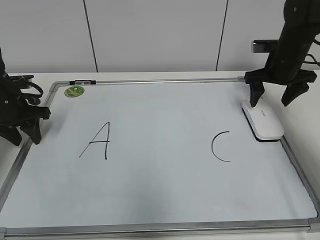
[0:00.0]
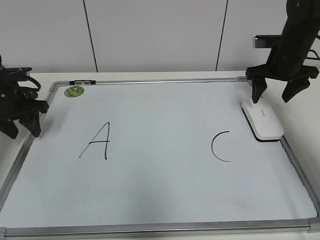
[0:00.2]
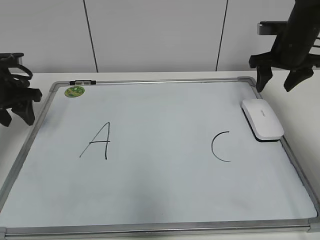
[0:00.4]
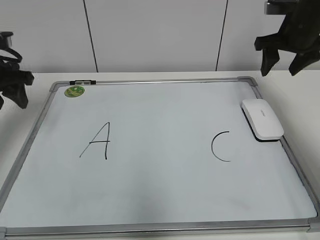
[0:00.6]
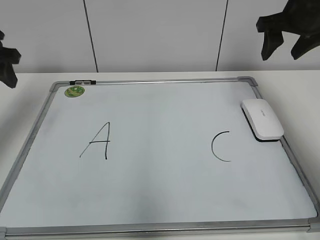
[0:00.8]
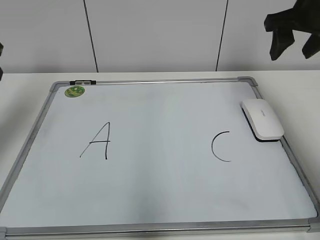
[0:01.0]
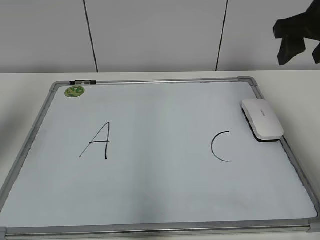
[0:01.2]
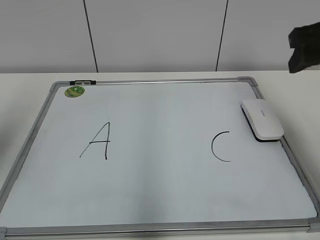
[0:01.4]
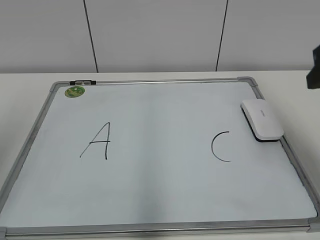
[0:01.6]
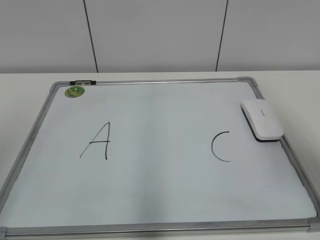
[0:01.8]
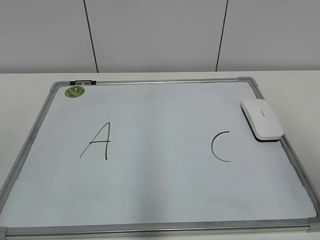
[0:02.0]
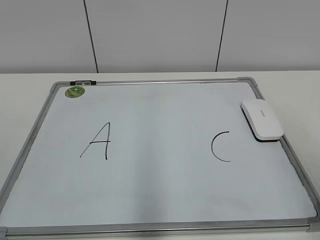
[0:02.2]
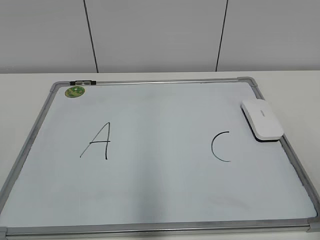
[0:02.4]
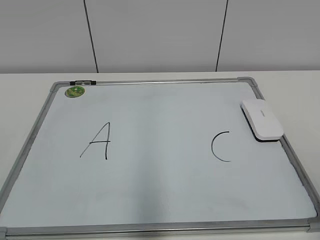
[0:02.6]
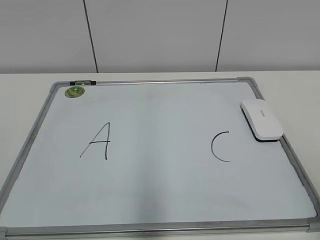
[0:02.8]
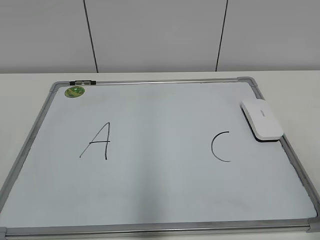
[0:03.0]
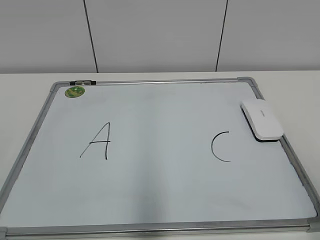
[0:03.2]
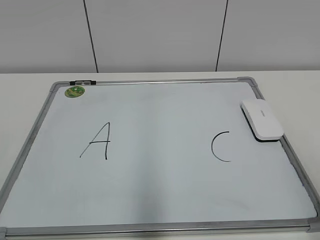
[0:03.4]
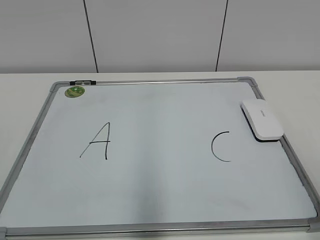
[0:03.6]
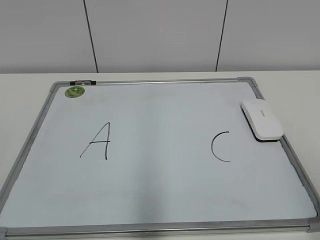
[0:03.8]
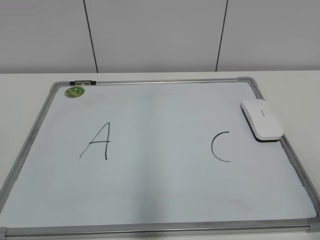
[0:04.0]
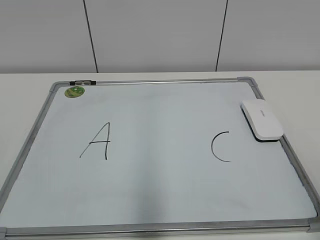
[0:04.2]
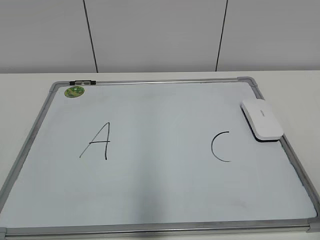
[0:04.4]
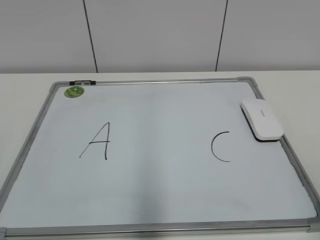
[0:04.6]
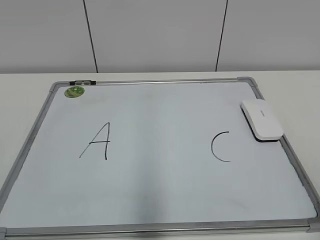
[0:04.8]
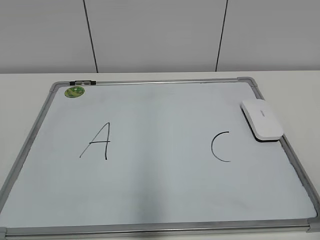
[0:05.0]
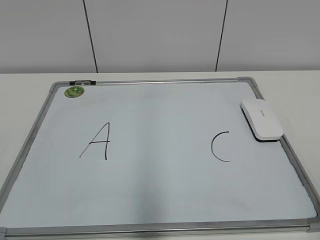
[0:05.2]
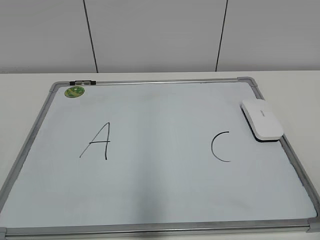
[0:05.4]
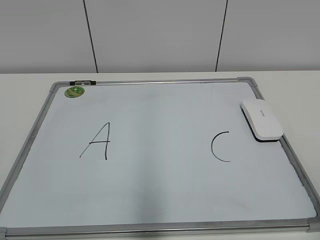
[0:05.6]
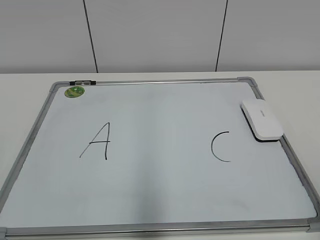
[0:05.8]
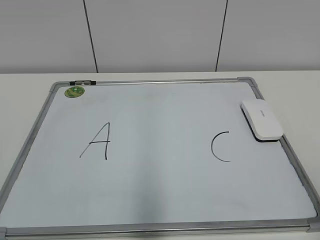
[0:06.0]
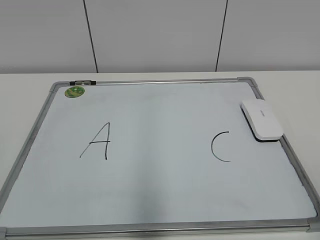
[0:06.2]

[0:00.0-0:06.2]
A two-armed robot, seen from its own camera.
Task of the whole recording: pick up the eraser on the blackboard and erase the letter "B".
0:00.0 to 0:01.6: The two grippers go about 25 cm backward and upward. The right gripper closes its fingers.
0:01.6 to 0:03.2: Both grippers travel together backward, some 20 cm.
0:04.6 to 0:06.2: The two grippers keep their place.

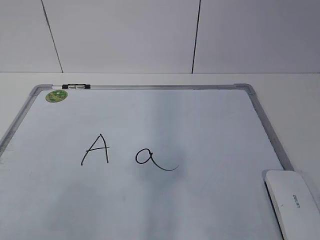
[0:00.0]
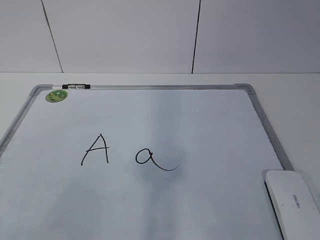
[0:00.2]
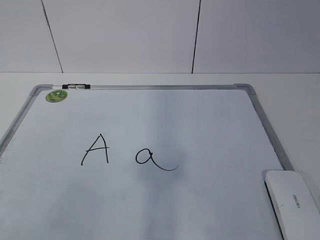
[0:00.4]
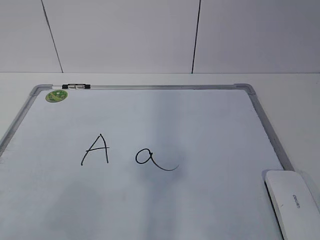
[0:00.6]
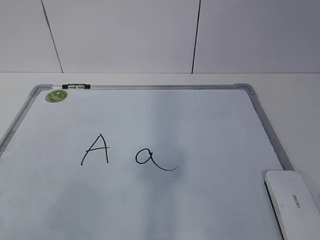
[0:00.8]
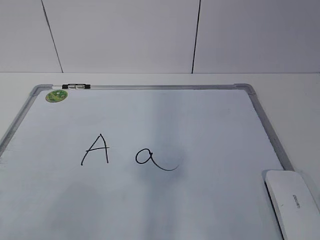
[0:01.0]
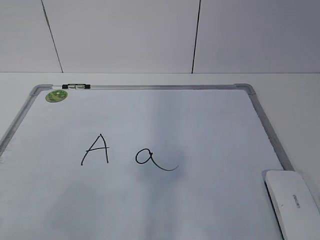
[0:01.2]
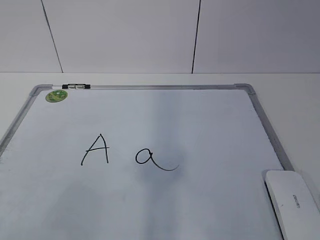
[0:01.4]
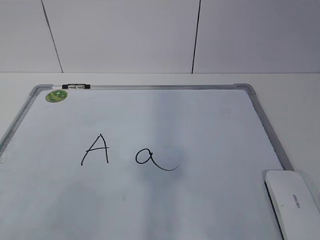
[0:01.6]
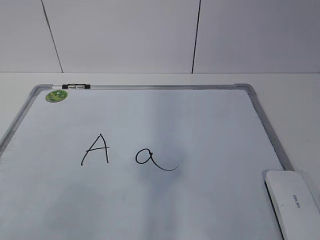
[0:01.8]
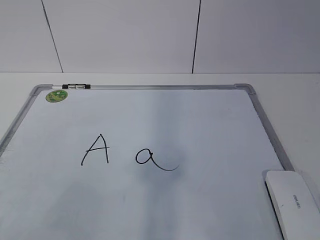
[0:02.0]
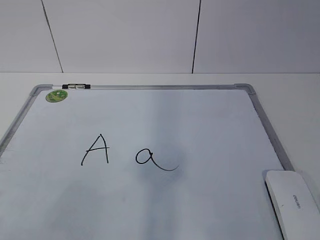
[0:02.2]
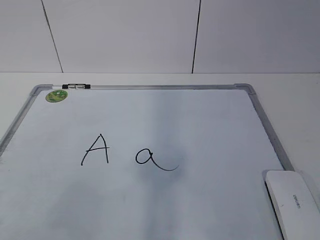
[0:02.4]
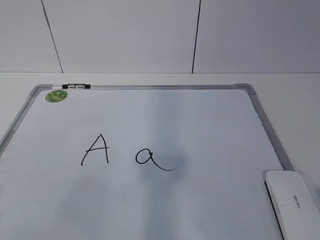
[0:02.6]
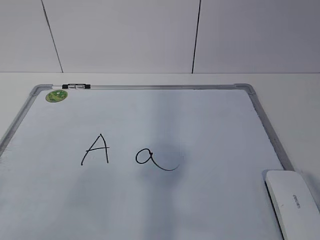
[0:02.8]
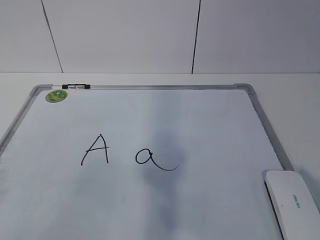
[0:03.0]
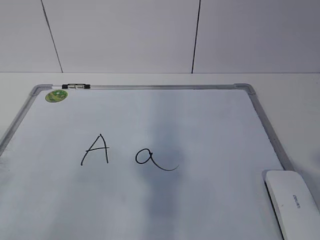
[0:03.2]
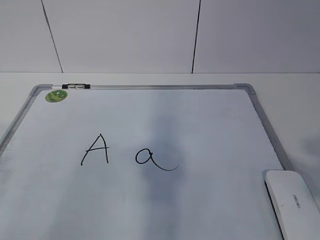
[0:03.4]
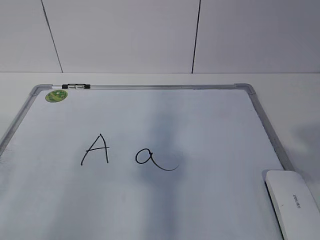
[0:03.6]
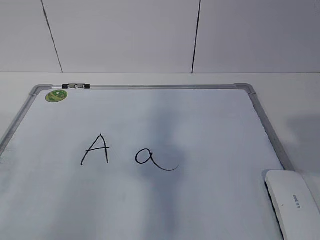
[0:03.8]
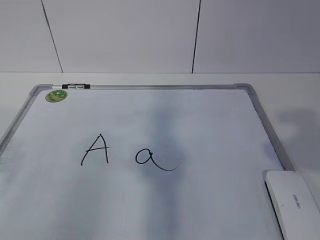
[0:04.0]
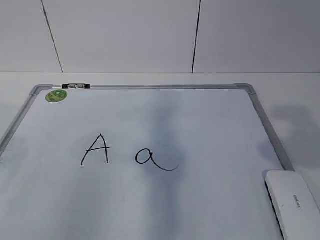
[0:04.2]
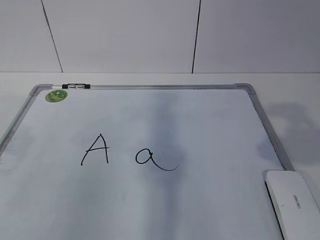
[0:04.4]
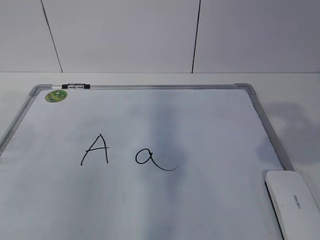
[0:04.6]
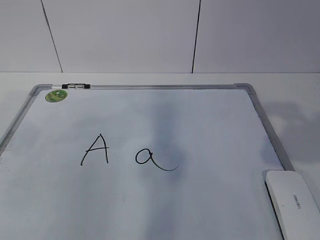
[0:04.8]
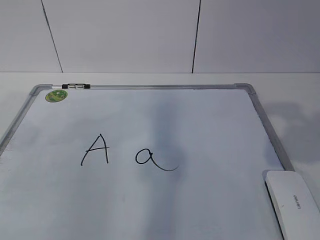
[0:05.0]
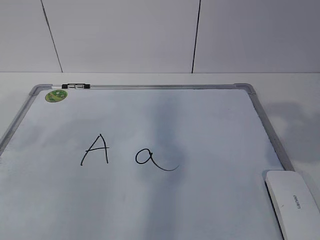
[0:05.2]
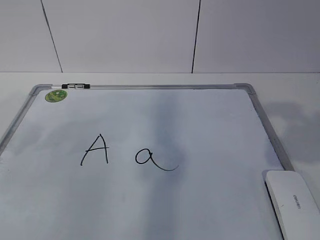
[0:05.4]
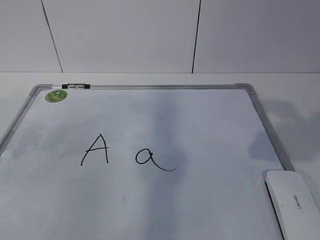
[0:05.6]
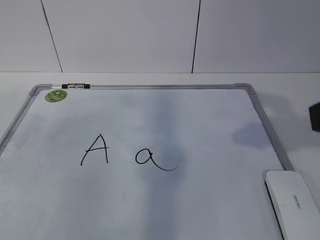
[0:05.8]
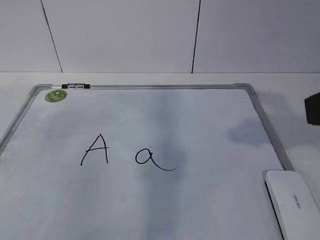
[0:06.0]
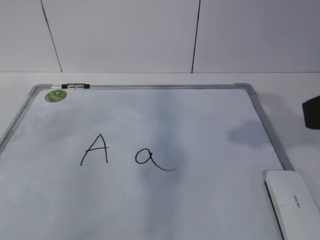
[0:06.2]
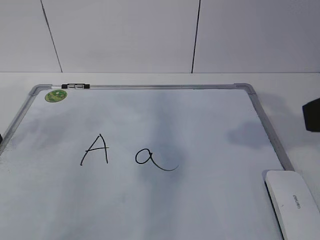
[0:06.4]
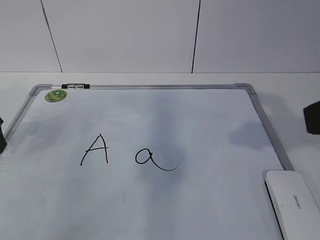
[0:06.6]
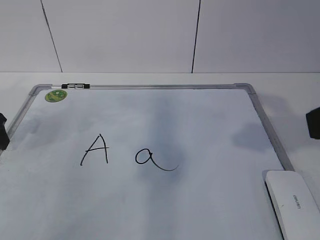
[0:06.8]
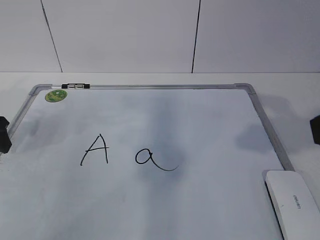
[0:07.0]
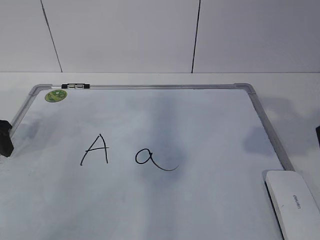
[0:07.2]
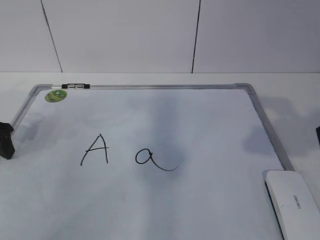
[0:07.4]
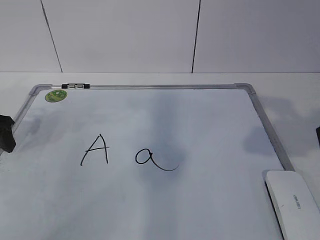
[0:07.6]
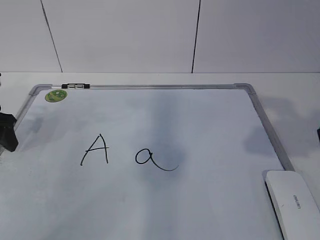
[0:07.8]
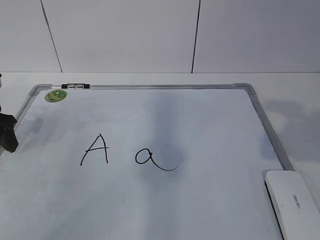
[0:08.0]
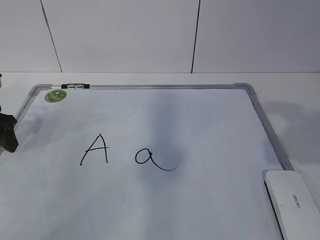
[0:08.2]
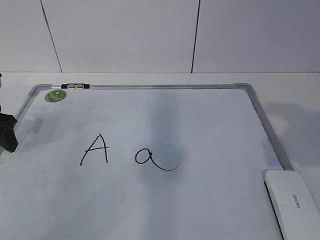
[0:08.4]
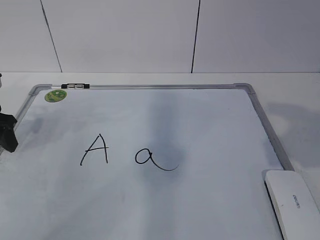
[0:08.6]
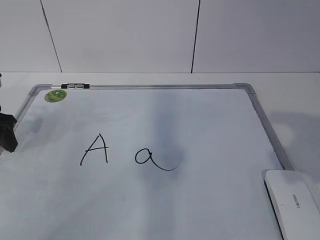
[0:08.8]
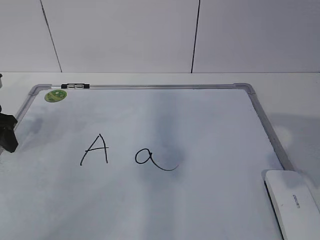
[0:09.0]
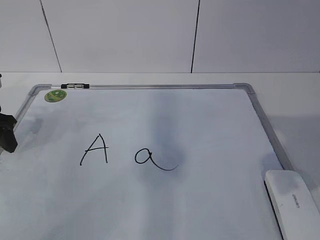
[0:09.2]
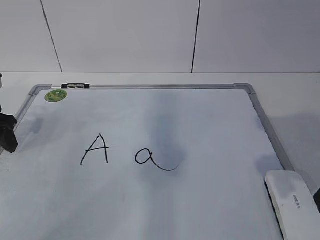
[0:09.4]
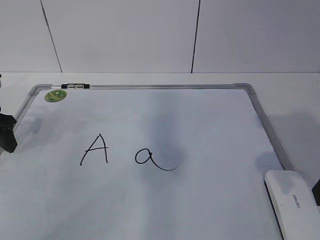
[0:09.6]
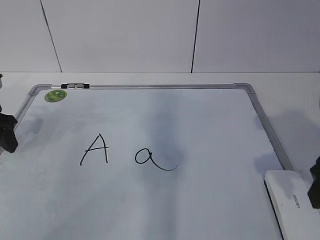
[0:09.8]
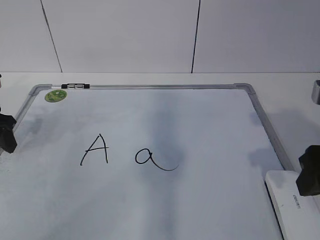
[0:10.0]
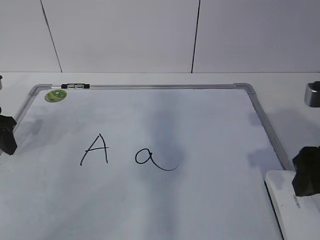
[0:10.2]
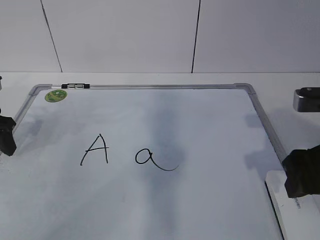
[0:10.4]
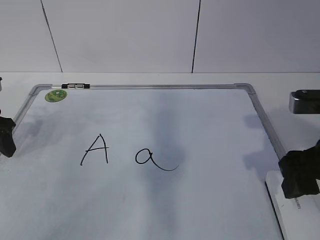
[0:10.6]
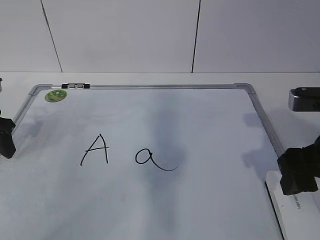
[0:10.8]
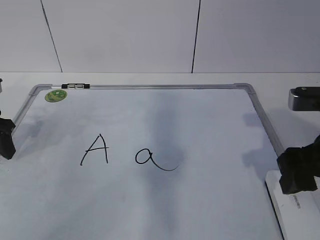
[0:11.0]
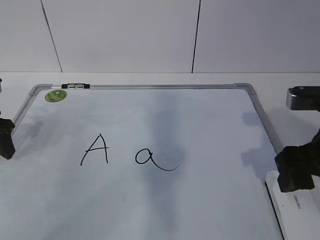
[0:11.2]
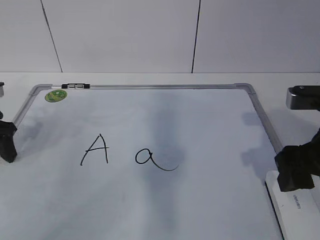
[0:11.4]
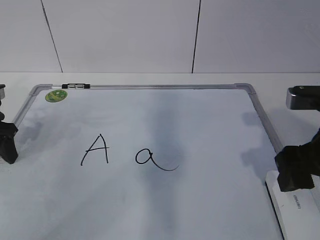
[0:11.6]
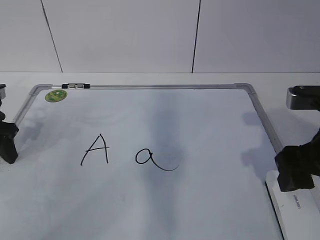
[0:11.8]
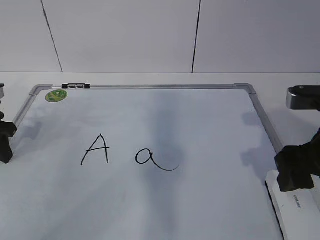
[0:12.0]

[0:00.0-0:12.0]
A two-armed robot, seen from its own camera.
Task of the whole recording: pick up the eraser on the blackboard and erase the letter "a".
Step, 0:00.0 to 0:10.6: Hold the drawing board steady with your left hand.
0:03.0 to 0:04.4: The right gripper shifts some 10 cm forward.
0:06.0 to 0:07.6: The left gripper is displaced downward and forward by some 10 cm.
0:09.0 to 0:10.4: The right gripper travels forward and downward by roughly 10 cm.
0:10.4 to 0:12.0: Both grippers stay about where they are.

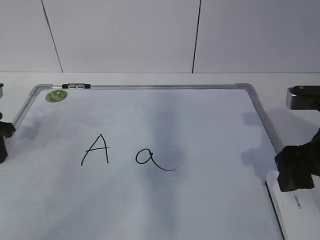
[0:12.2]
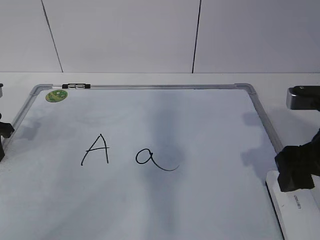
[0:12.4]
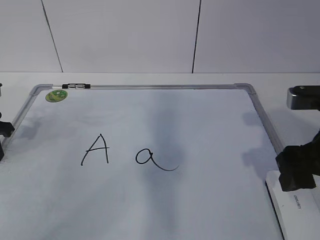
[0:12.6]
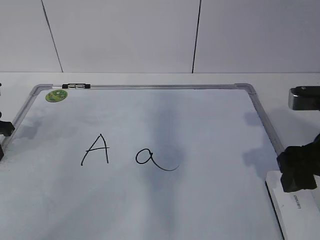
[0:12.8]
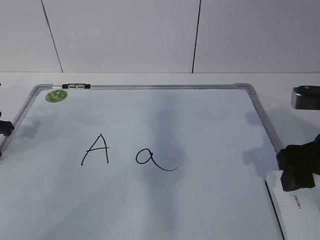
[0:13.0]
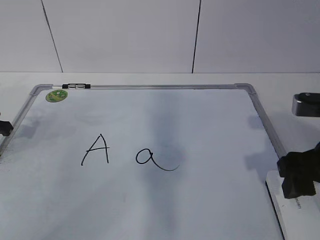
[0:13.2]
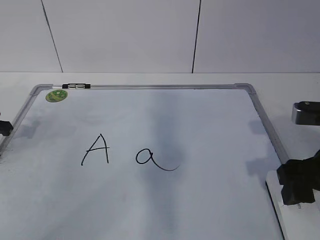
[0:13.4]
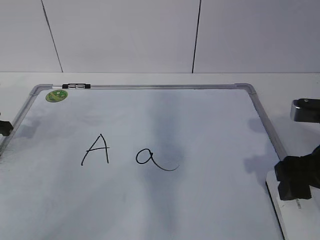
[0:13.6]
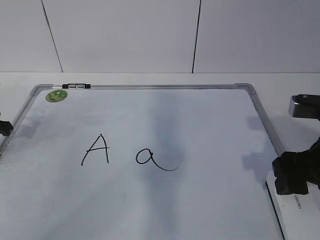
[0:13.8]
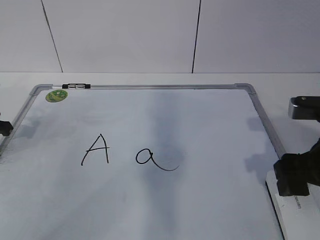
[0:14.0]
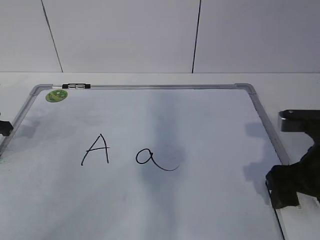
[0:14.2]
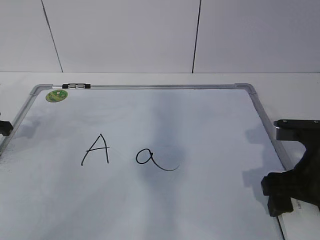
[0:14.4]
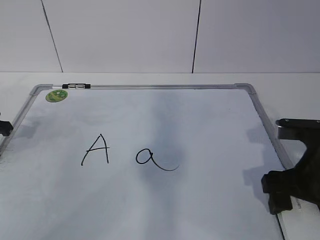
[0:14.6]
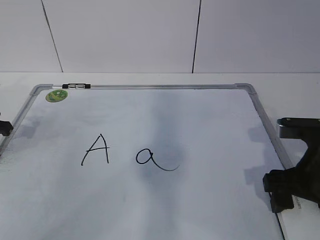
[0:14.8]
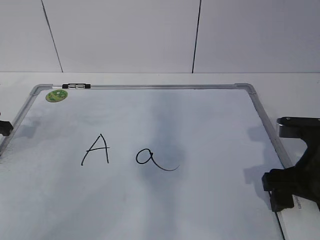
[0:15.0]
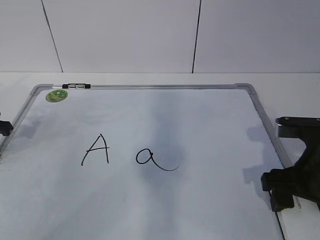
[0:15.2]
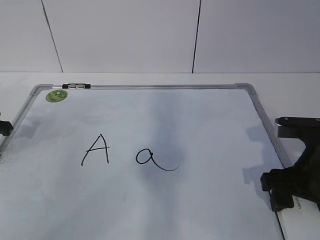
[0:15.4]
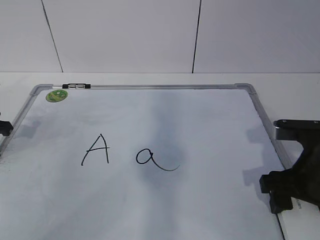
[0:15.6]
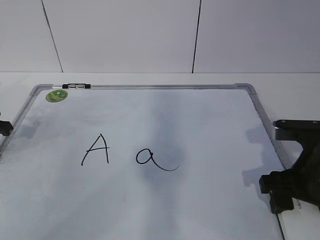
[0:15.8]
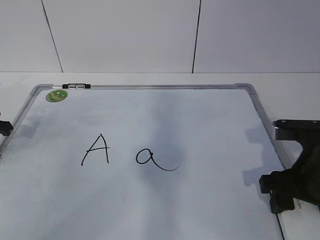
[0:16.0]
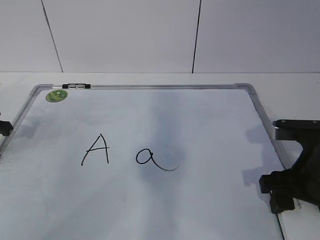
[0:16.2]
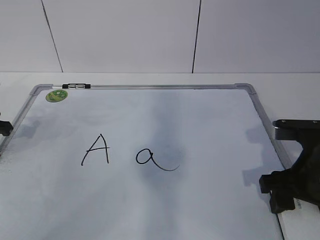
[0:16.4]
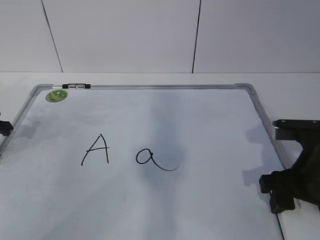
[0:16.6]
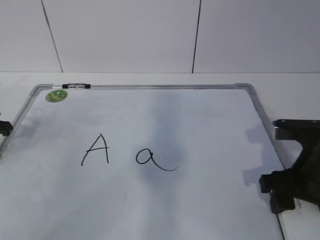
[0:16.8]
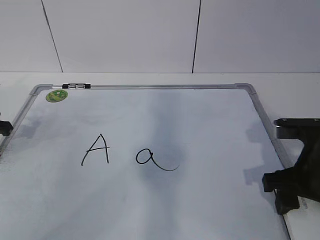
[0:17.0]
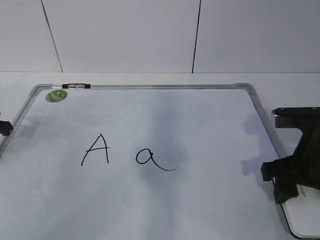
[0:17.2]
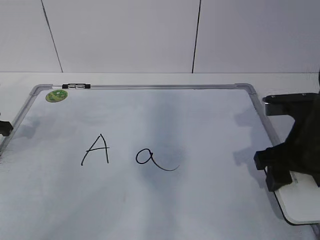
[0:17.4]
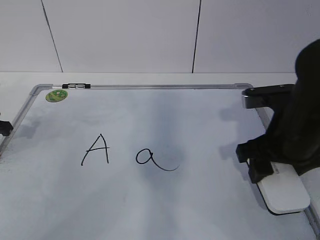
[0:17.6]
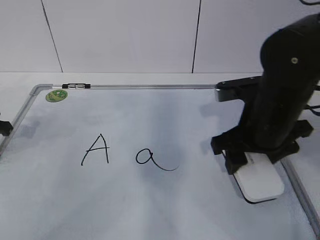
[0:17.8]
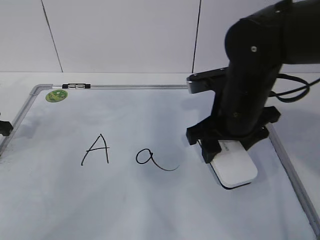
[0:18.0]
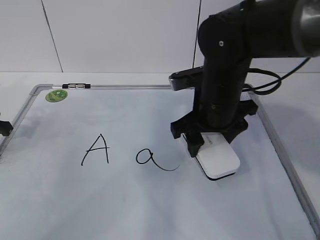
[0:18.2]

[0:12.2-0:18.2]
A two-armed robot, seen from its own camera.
Task of the whole recording: pick up the eraser on the blackboard and erase the letter "a".
Step, 0:13.6 to 0:18.0: Erase the letter a with your right hand.
0:13.8 to 0:15.2: The right gripper opens, then closes once more.
0:15.2 to 0:16.6: The right gripper closes.
0:16.6 to 0:18.2: The right gripper goes about 15 cm to the left and forward.
